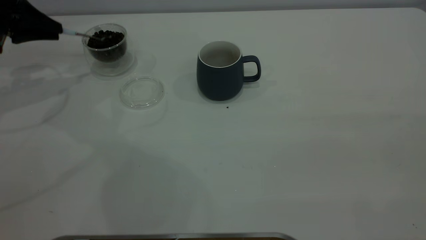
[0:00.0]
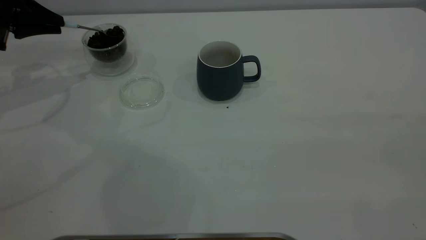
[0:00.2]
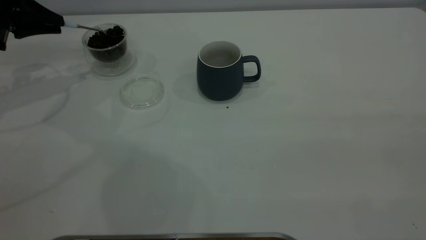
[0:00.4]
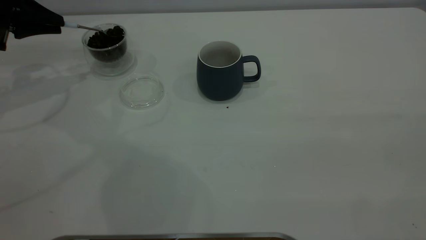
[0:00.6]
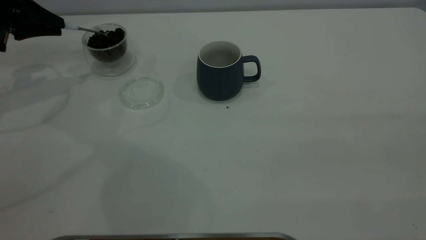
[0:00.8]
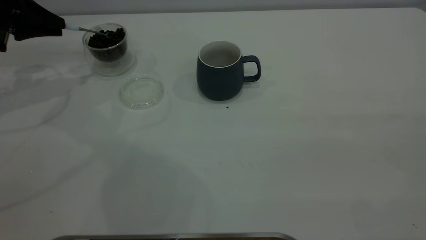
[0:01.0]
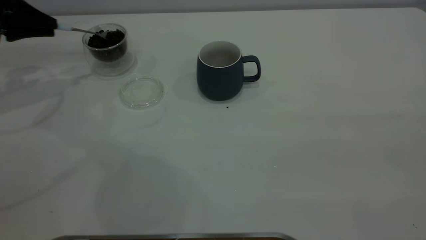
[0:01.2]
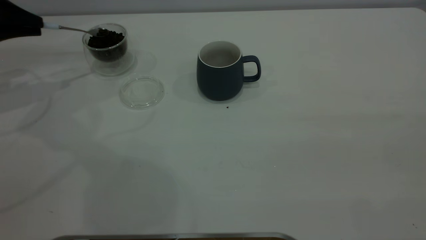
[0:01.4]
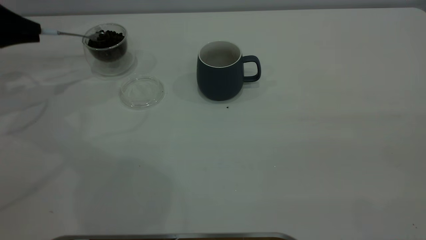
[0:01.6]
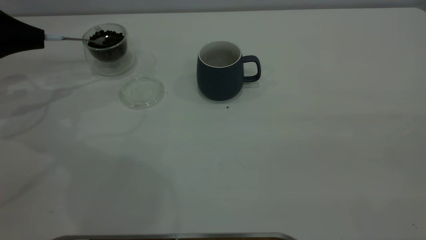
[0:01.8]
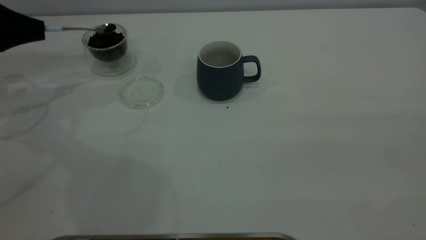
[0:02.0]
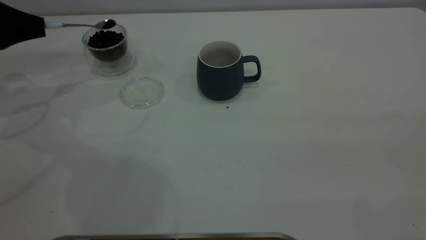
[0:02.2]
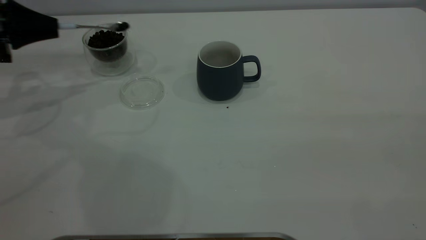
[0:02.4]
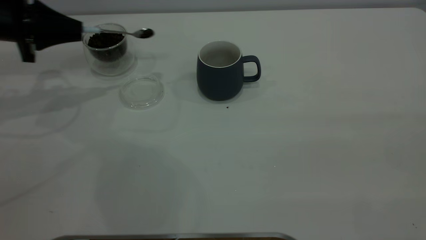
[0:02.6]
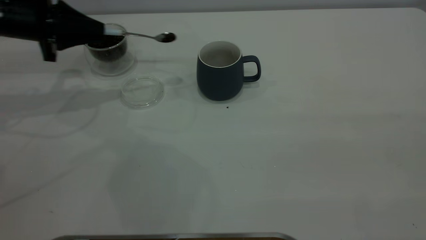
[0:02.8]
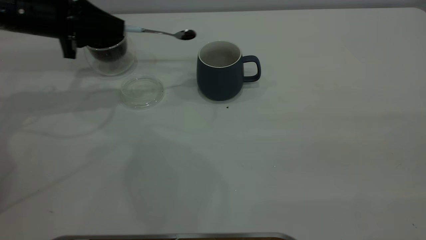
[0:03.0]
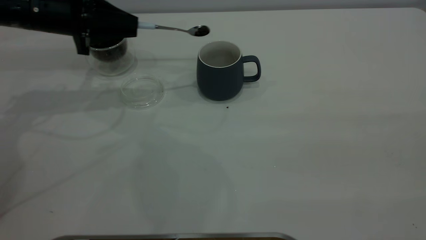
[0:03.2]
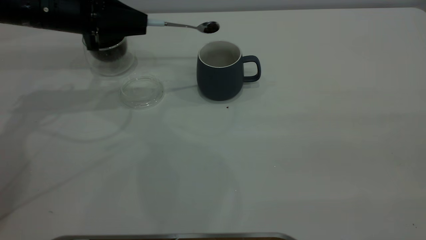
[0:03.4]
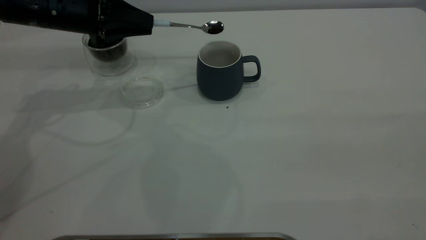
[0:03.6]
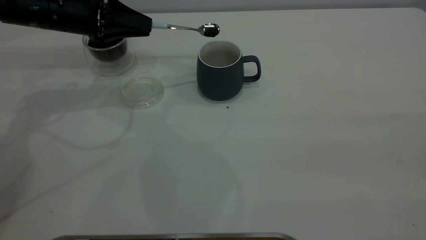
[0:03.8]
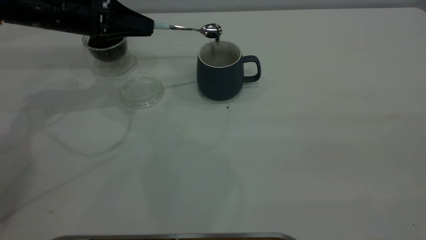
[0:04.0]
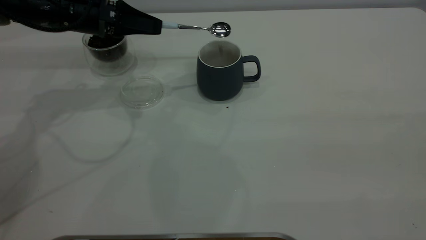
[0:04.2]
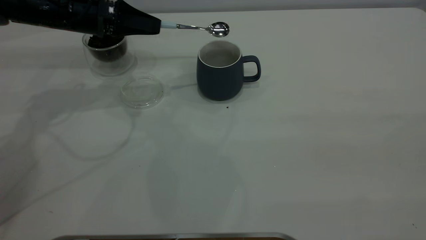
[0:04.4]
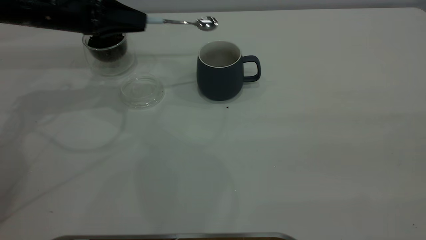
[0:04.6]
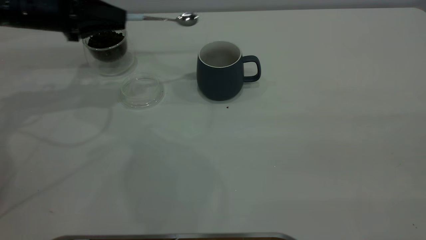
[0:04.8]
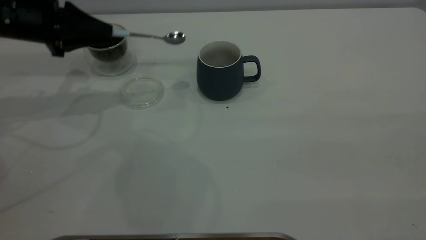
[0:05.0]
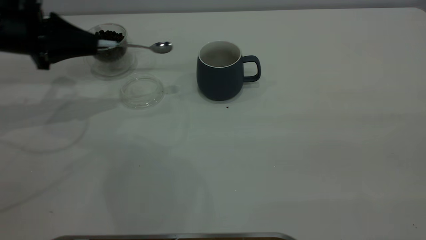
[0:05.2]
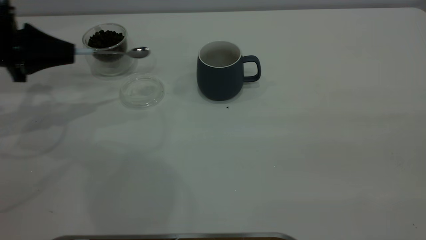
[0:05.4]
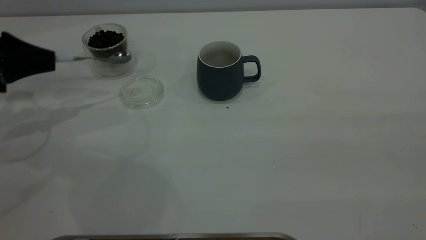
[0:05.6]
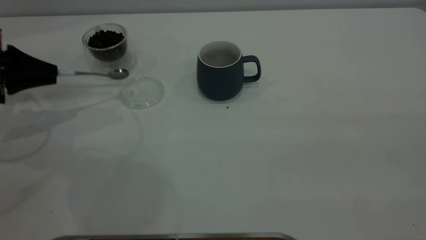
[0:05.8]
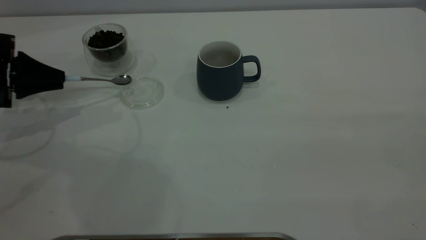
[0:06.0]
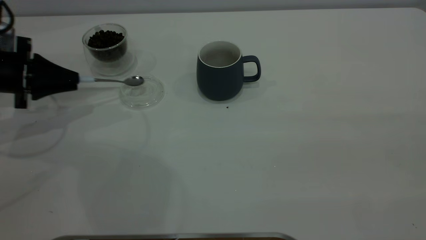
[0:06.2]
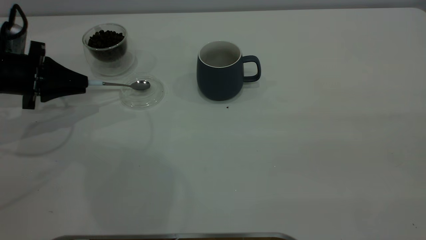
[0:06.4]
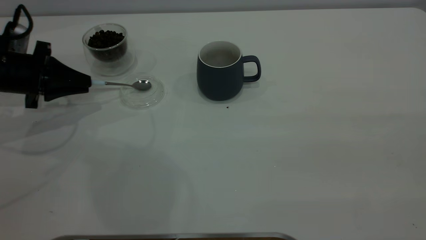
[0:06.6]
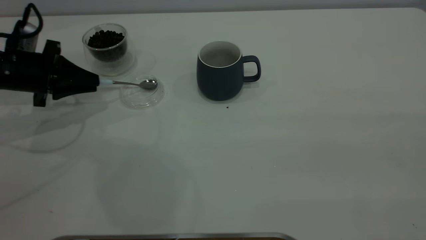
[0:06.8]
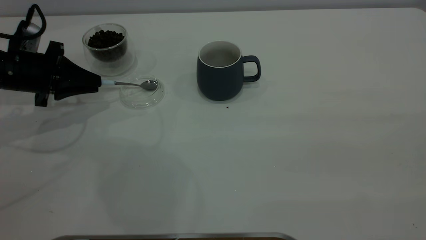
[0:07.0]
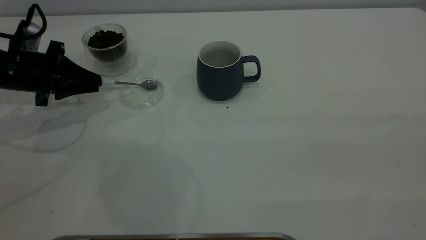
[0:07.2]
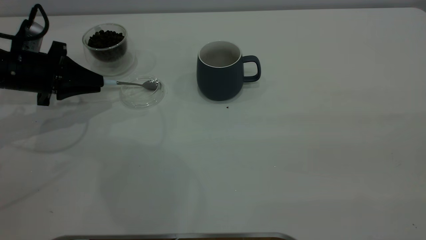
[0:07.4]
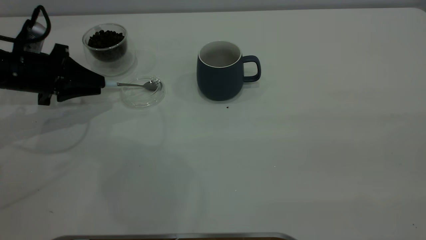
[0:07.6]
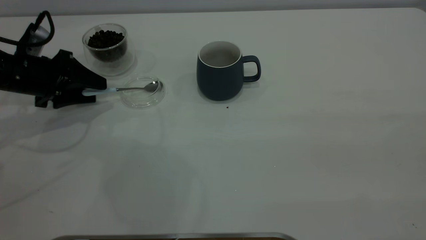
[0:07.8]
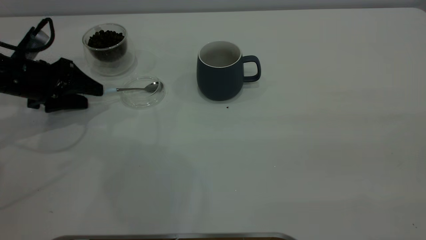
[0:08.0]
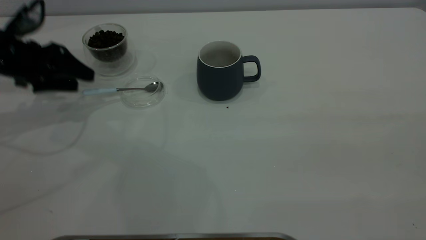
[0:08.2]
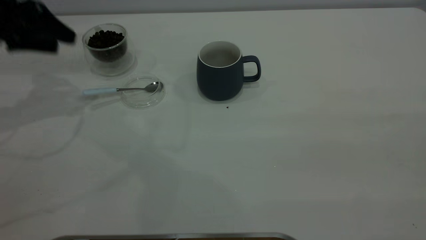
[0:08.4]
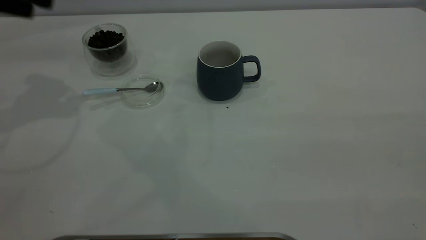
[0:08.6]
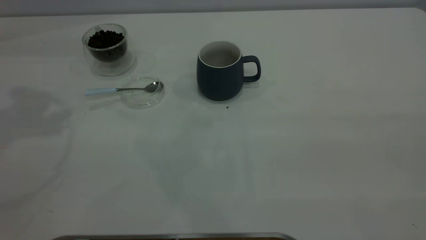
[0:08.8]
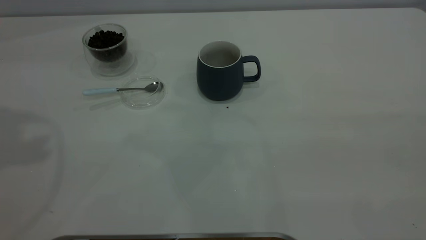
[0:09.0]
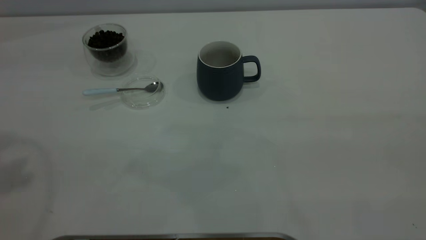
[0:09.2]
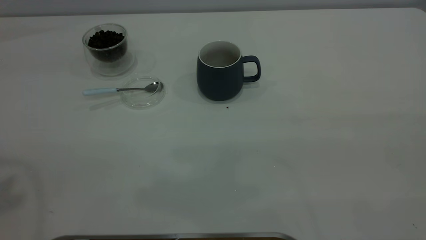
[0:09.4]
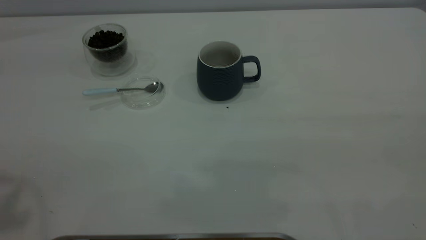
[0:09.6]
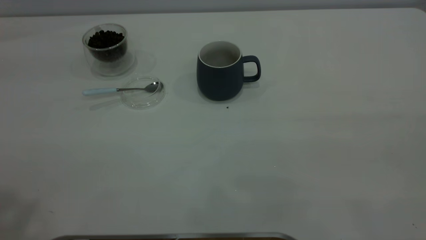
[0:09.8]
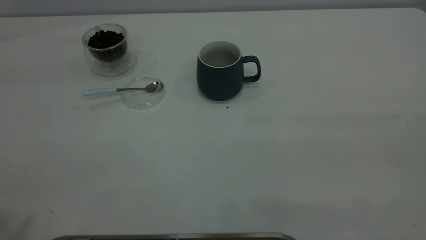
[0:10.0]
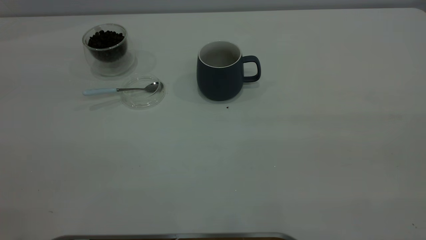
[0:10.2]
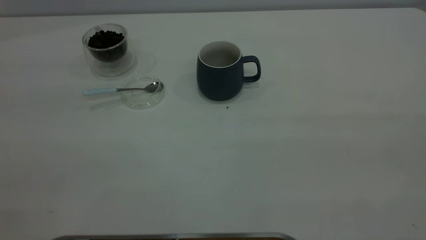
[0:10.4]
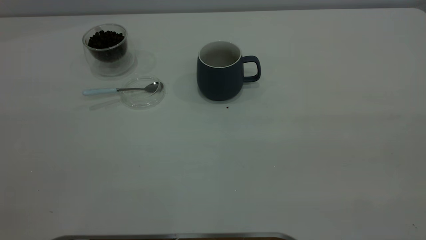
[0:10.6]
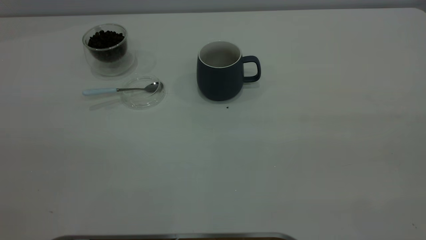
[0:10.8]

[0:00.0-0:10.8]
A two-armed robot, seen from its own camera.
Task of the whole recording: the right gripper place the grey cup in the center of the table, the left gripper take the blue spoon from the cup lid and scoop out the coffee beans from the coffee cup and put them into the grey cup, the left gripper put the spoon back into the cup lid.
Step, 0:00.0 to 0:04.4: Scoop a spoonful of beans into the cup.
Step, 0:04.8 to 0:08.4: Place the spoon back in its original place.
0:00.0 to 0:01.6: The grippers make only small movements.
0:01.6 to 0:03.0: The left gripper travels to the right by some 15 cm.
0:04.6 to 0:06.2: The left gripper heads to the left, downward and backward, covering some 15 cm.
0:06.2 to 0:07.8: The left gripper opens its fingers.
0:07.8 to 0:09.2: The left gripper goes approximately 35 cm upward.

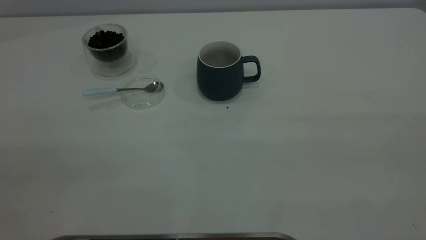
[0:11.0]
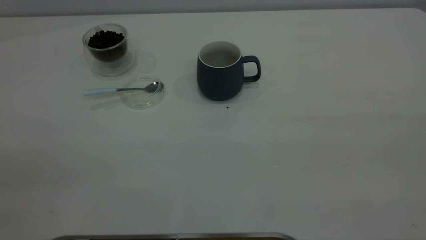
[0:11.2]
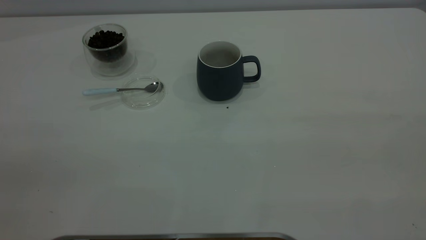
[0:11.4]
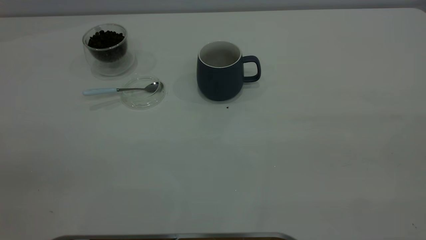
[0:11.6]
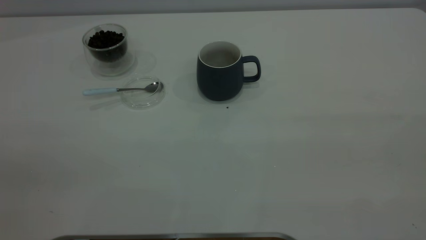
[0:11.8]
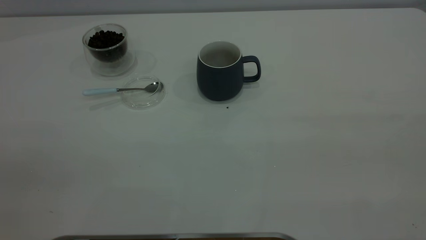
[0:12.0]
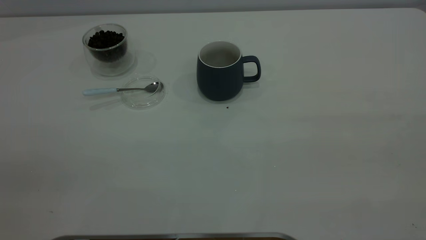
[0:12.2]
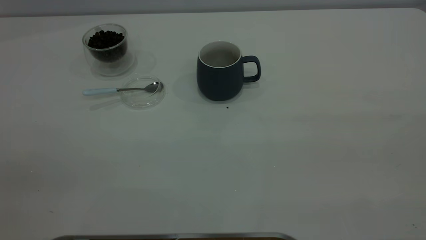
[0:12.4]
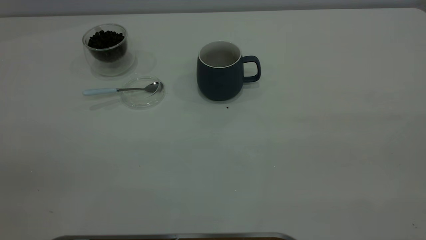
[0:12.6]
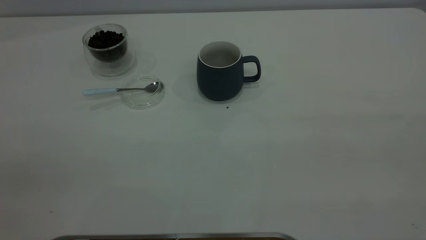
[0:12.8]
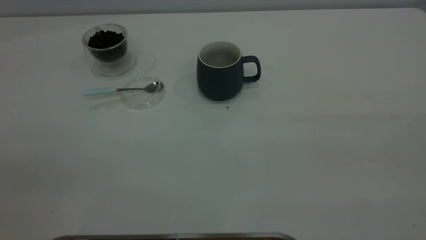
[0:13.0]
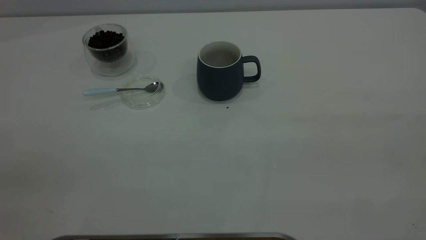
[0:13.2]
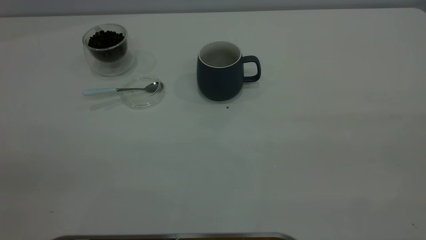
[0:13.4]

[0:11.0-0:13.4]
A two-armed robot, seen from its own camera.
Task of the whole recording: the right gripper place the grey cup in the center of the table, the left gripper take the blue spoon from the cup lid and scoop out the coffee beans from the coffee cup and put them into the grey cup, the left gripper put the spoon back into the cup lid.
0:12.2 to 0:13.4: Both grippers stay put.
